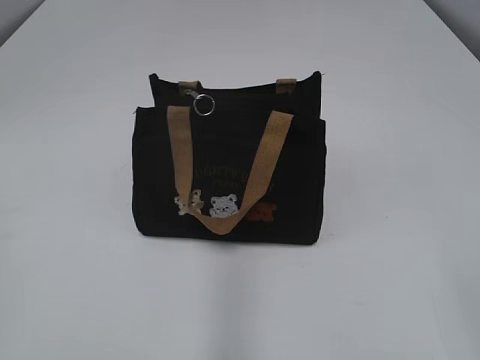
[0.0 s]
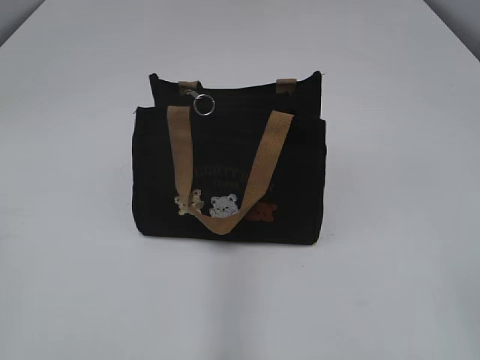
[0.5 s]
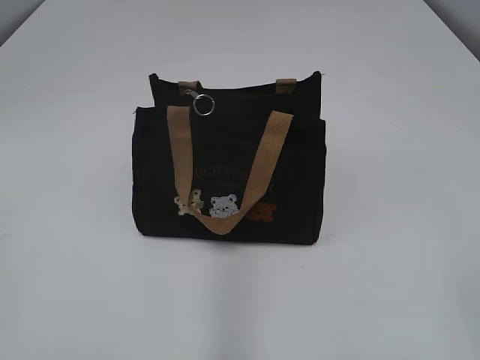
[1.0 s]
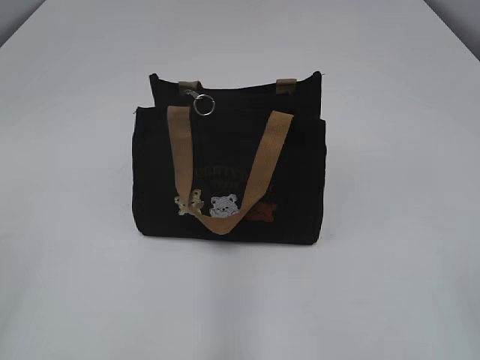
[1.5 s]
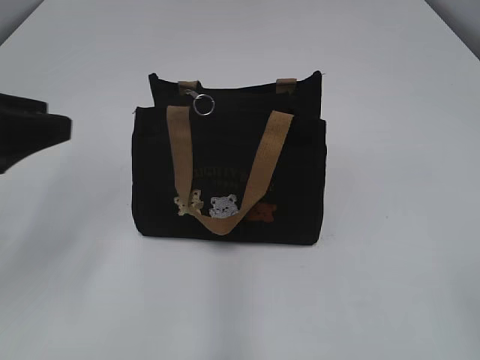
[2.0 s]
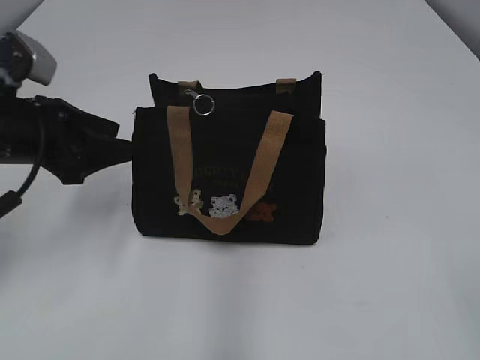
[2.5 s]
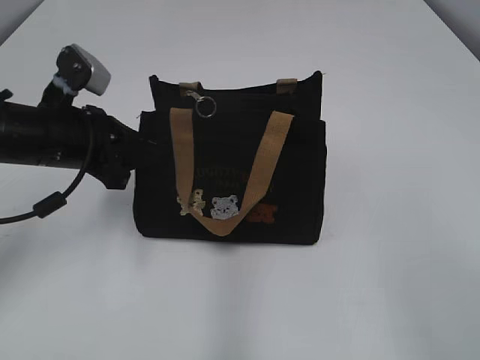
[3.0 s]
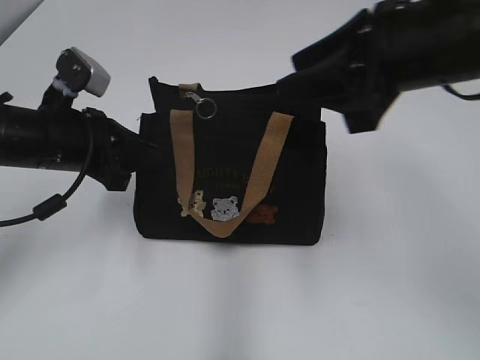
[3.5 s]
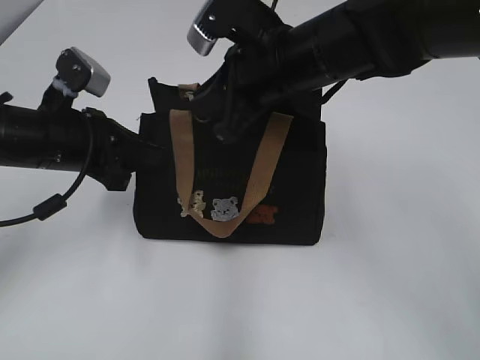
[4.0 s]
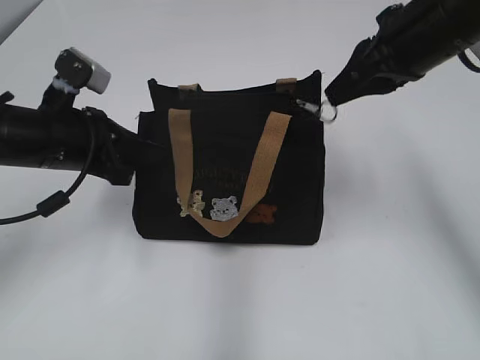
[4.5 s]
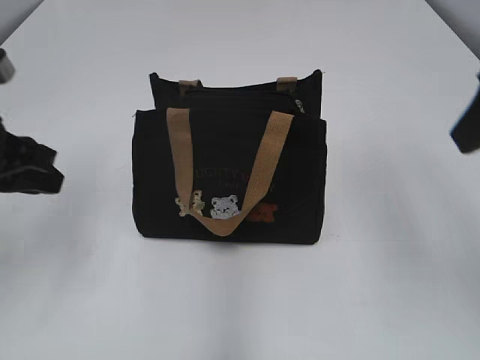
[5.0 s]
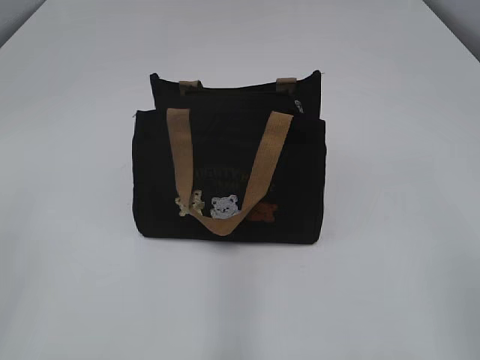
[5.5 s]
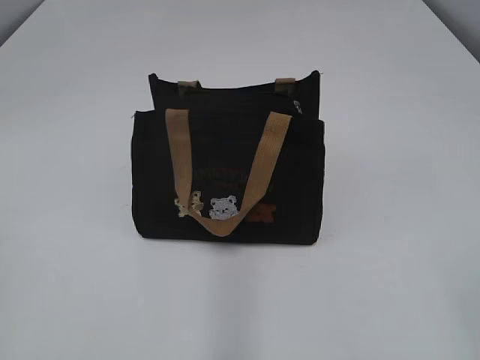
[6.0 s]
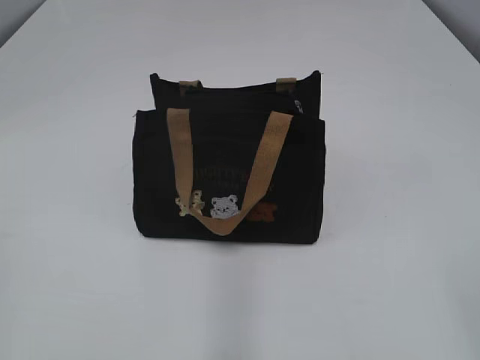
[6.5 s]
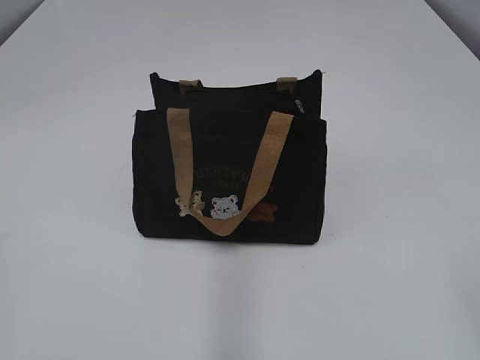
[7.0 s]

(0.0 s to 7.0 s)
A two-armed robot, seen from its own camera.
Step, 0.0 s - 4.0 s: Pull open the zipper with your right hand.
2.0 s - 3.5 s: The left gripper goes about 15 cm forward, downward and to the right, and closes up. Meanwhile the right gripper shifts roughly 30 cm forward and to the left.
3.5 s - 5.0 s: The left gripper heads backward, covering about 5 cm, and opens up, while the right gripper is displaced to the right by approximately 5 cm, and closes, then reopens.
5.0 s - 7.0 s: The two grippers go roughly 25 cm backward.
